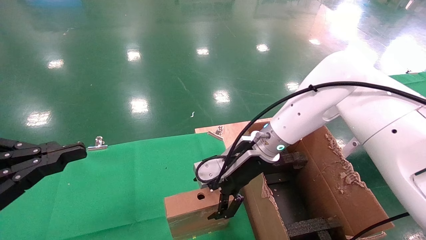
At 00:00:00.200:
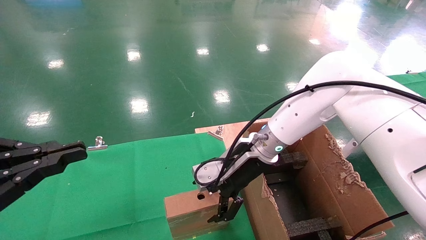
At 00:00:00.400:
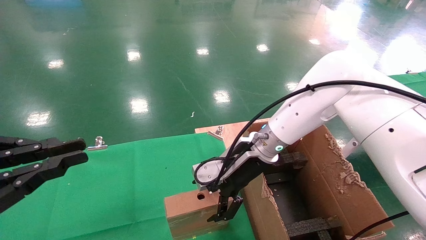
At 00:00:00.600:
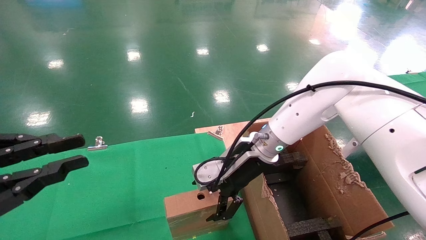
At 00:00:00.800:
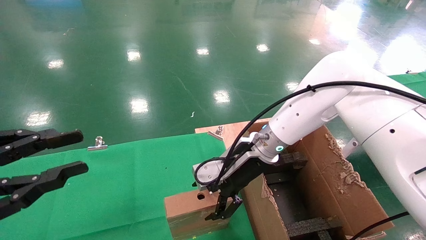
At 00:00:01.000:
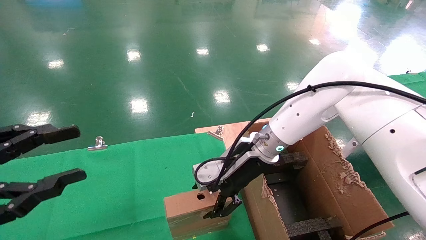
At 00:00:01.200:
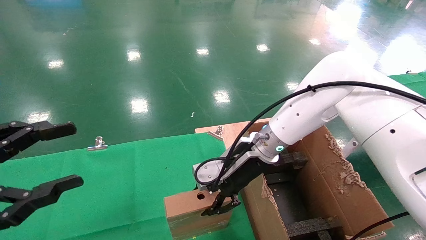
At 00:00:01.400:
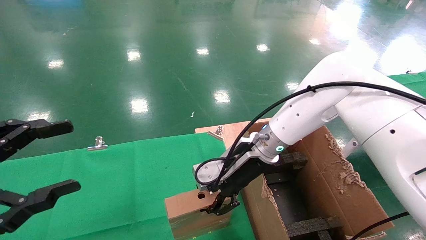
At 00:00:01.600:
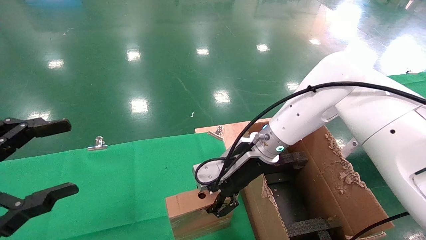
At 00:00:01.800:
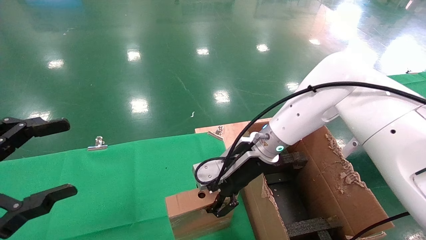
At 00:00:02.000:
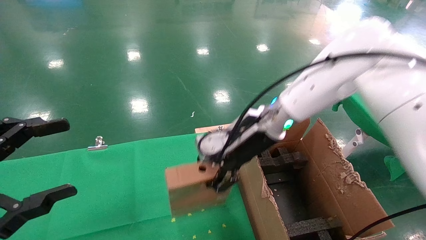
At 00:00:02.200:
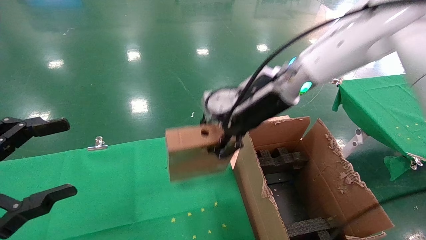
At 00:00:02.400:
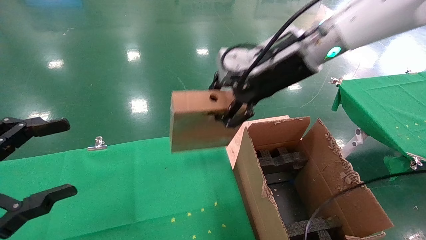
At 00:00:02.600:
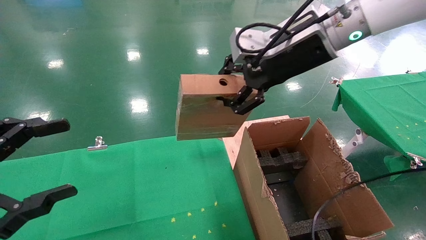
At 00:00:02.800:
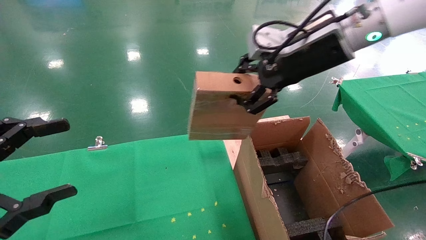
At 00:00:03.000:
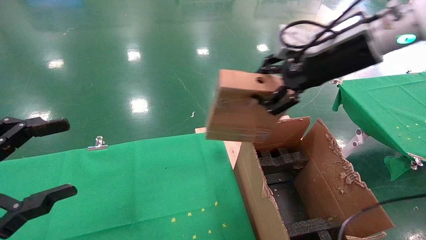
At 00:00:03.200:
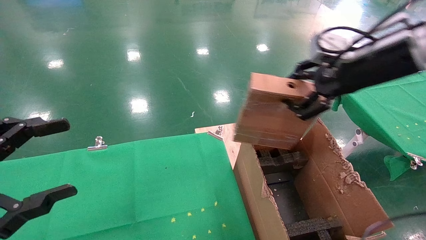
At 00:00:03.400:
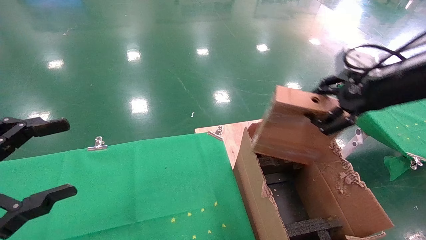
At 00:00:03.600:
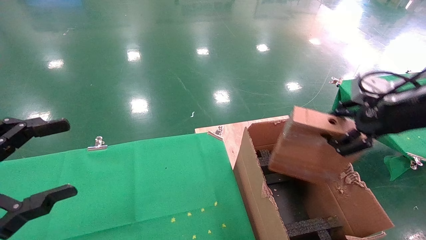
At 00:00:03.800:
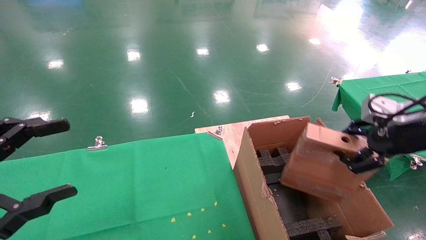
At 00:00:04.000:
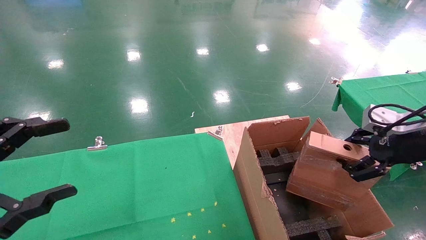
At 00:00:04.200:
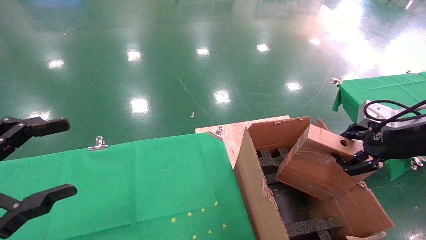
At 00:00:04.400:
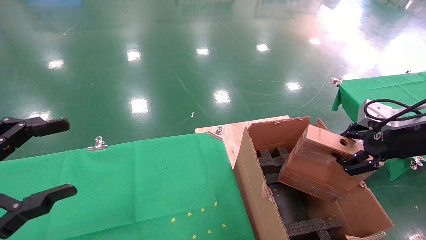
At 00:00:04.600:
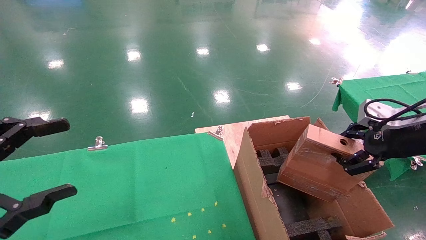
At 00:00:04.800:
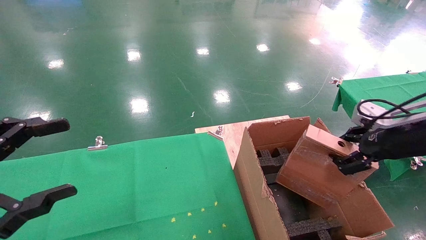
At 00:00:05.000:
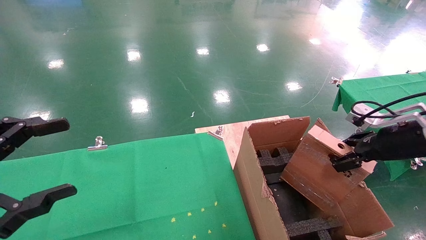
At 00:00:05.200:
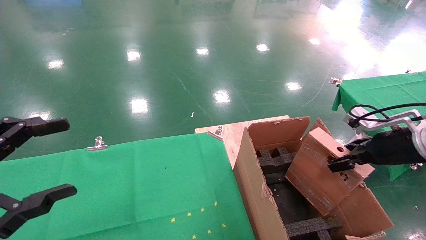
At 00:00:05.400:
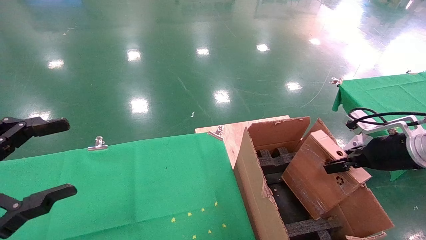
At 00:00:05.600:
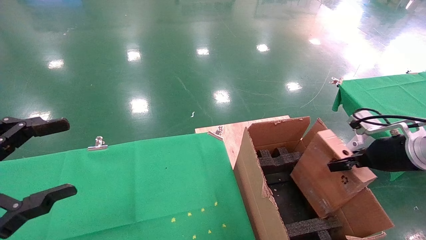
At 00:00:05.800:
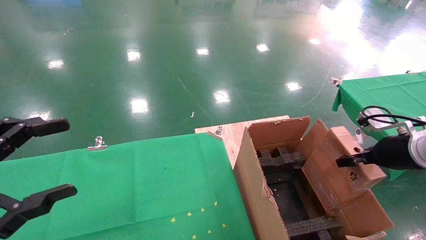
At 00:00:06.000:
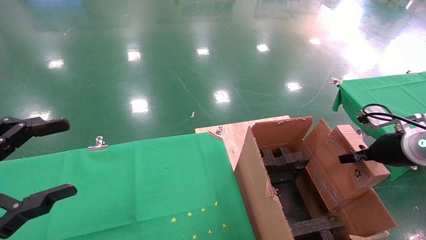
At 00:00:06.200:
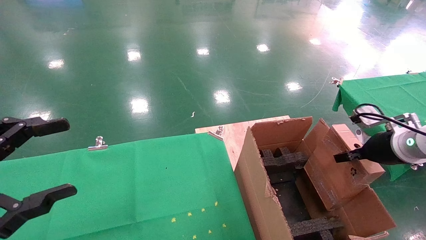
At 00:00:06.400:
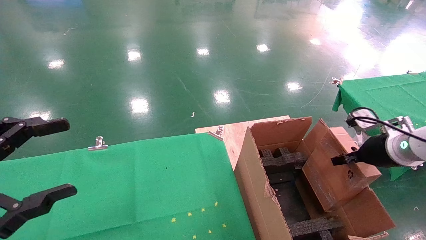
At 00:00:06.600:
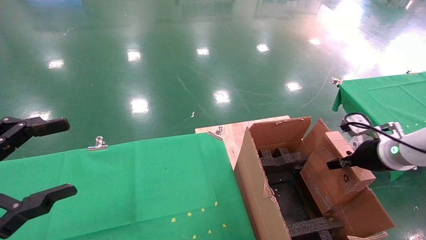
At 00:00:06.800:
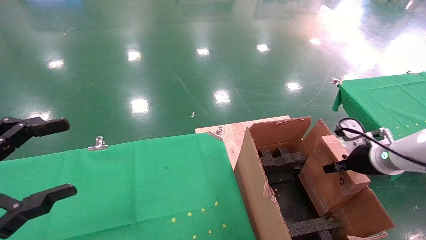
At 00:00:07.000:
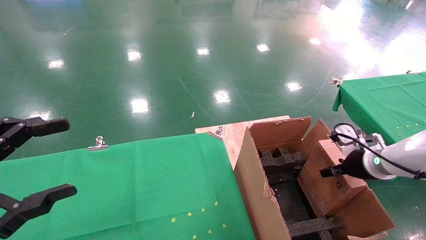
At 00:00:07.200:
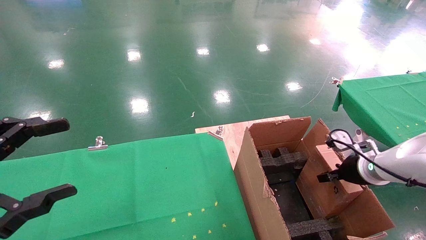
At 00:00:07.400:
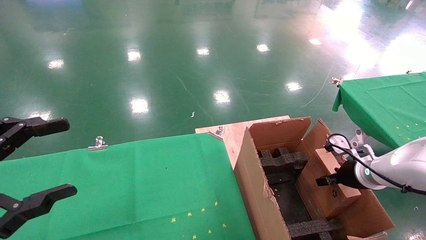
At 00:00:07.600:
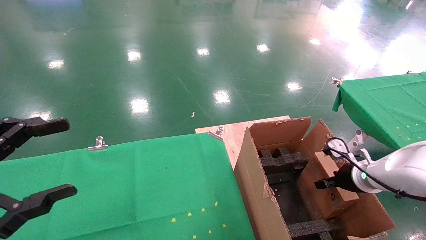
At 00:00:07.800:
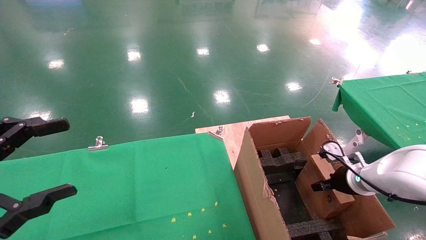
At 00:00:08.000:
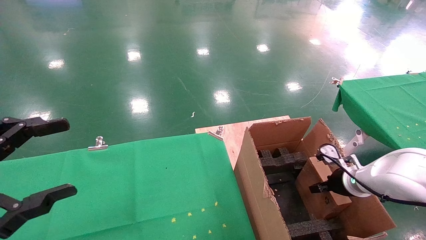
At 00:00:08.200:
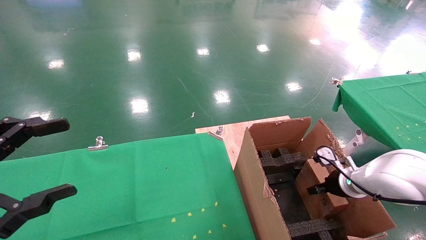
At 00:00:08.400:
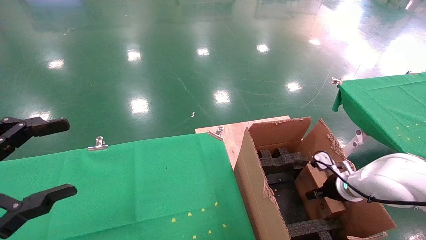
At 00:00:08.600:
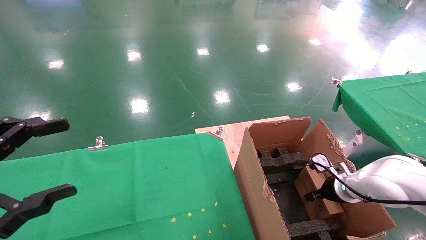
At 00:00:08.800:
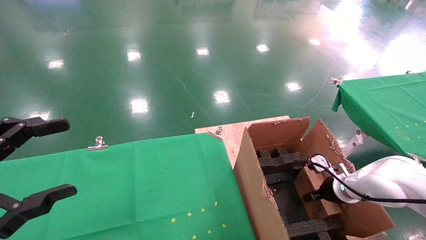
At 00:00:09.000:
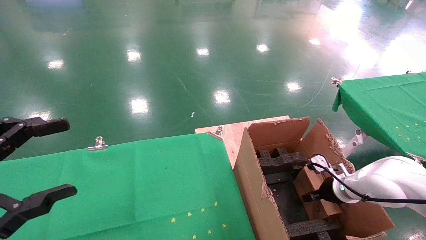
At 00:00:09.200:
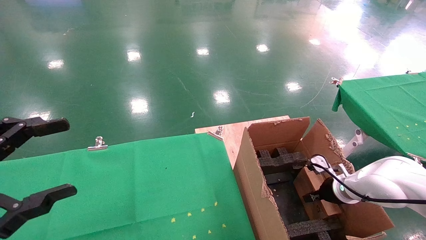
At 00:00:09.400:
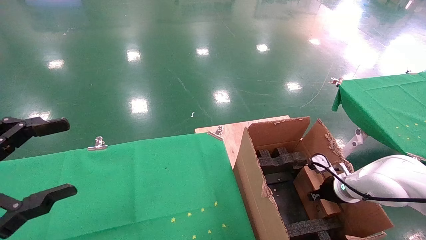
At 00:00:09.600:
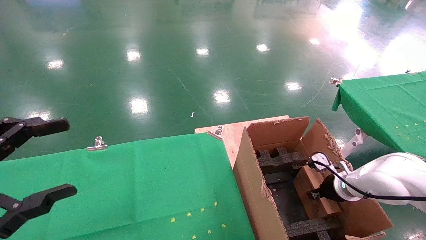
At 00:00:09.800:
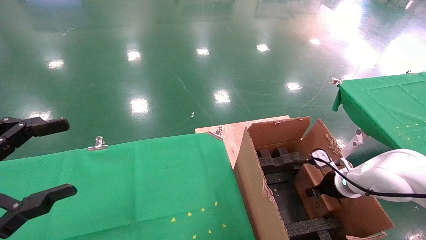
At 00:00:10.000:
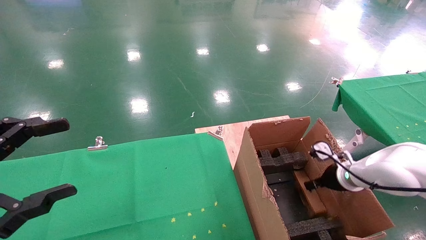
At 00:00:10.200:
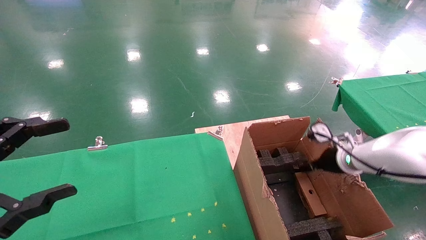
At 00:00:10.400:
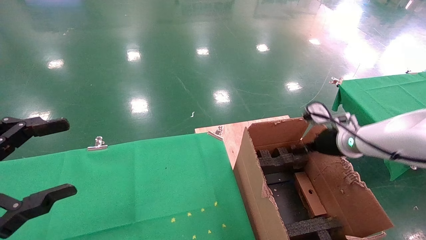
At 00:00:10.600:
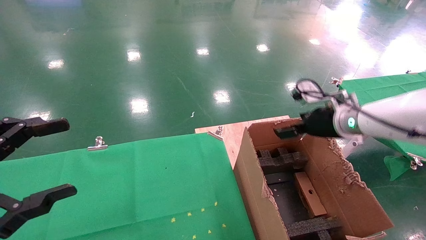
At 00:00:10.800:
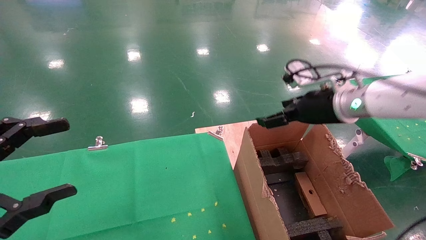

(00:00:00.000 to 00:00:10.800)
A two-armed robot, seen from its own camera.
Task of the whole recording: using a robotic arm to pick up a cardboard box and palace it the carton.
Step, 00:00:01.200 - 00:00:10.400: Place the mouse and the power cord paper box into the container.
00:00:00.000 - 00:00:01.600: The left gripper opens up; the right gripper closes its fingers.
00:00:01.600 - 00:00:03.000: The right gripper heads upward and to the right, covering about 25 cm.
00:00:03.000 - 00:00:04.600: The right gripper travels to the right, downward and backward by roughly 20 cm.
00:00:04.600 - 00:00:06.200: The right gripper moves downward and forward, about 10 cm.
00:00:06.200 - 00:00:07.800: The right gripper shifts roughly 10 cm downward.
00:00:07.800 - 00:00:09.200: The right gripper shifts about 5 cm downward.
00:00:09.200 - 00:00:10.800: The right gripper heads upward, covering roughly 25 cm, and opens up.

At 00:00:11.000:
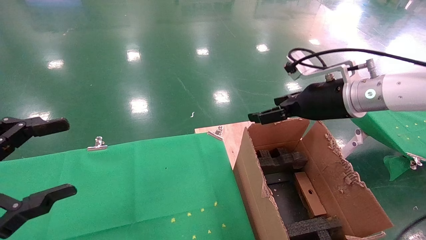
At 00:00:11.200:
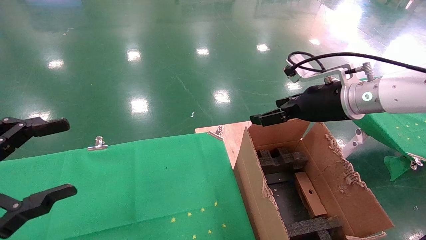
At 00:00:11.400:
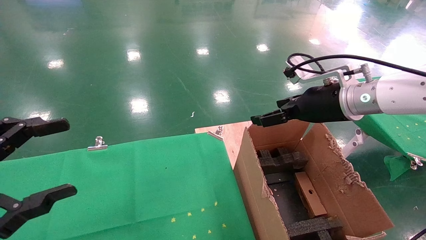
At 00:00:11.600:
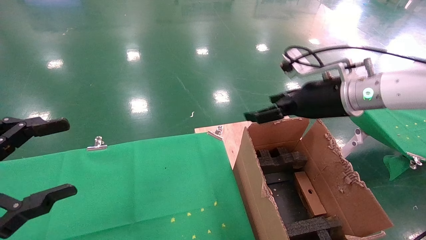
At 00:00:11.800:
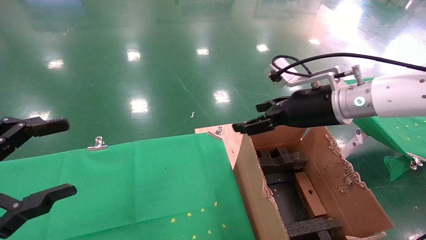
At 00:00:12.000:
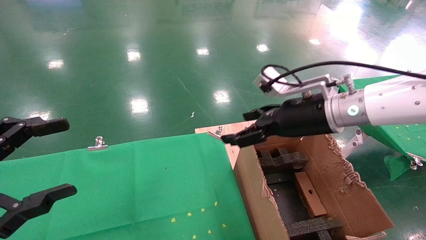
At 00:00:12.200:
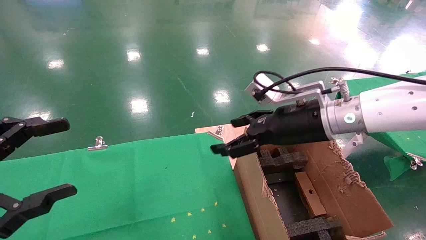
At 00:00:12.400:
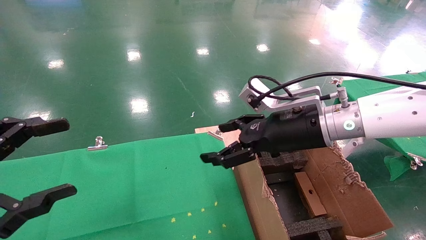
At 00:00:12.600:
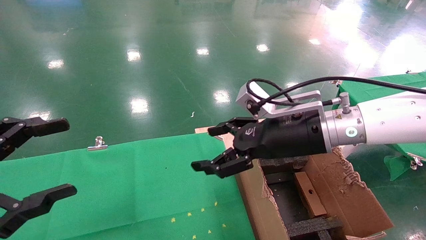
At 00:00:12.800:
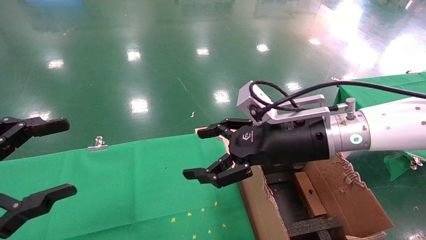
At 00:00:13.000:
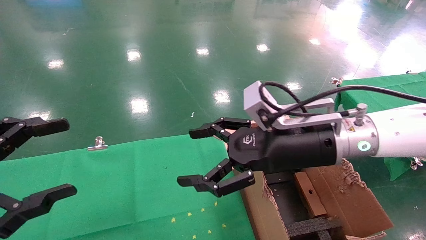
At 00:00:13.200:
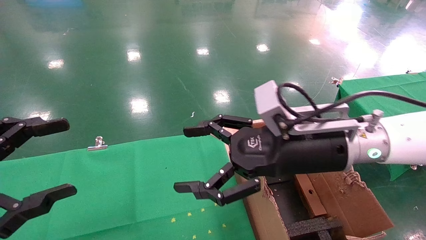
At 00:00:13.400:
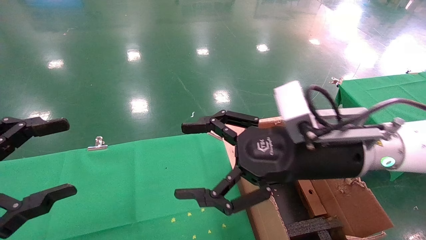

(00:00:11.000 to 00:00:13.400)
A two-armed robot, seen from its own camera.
Task of the whole recording: using a robotic arm to pick up a cardboard box and palace it the carton.
00:00:11.000 - 00:00:12.200: The right gripper goes about 5 cm to the left.
00:00:12.200 - 00:00:13.400: The right gripper shifts roughly 5 cm backward.
